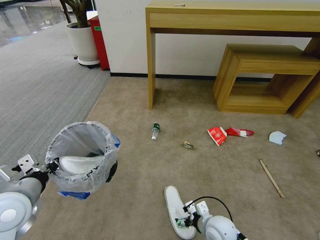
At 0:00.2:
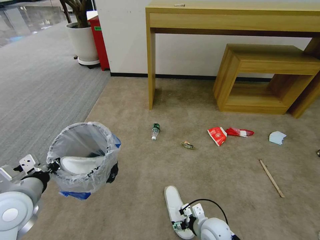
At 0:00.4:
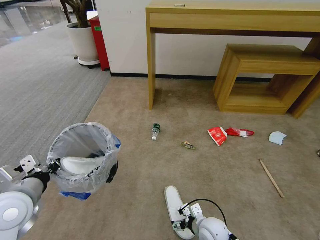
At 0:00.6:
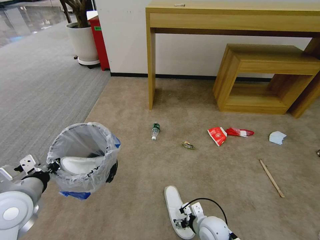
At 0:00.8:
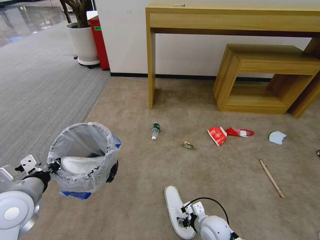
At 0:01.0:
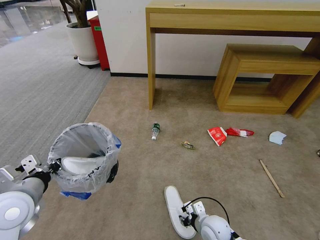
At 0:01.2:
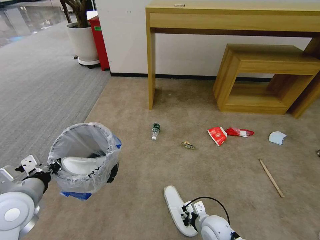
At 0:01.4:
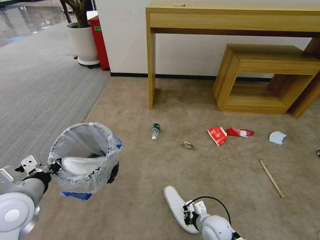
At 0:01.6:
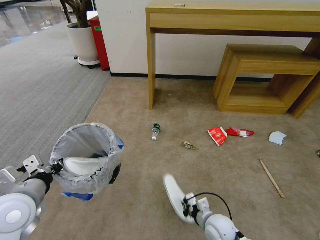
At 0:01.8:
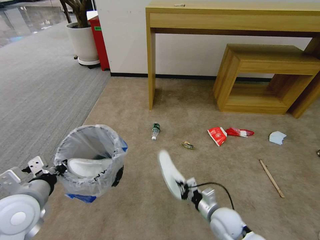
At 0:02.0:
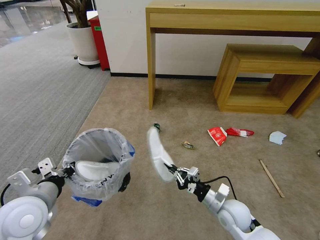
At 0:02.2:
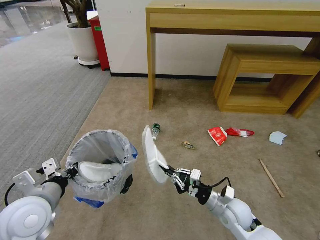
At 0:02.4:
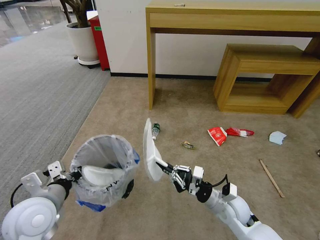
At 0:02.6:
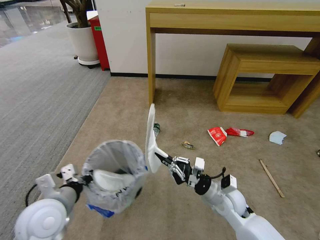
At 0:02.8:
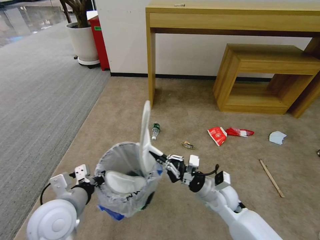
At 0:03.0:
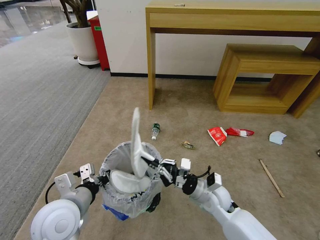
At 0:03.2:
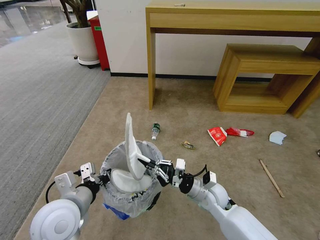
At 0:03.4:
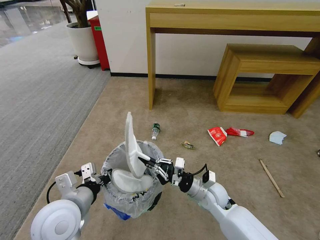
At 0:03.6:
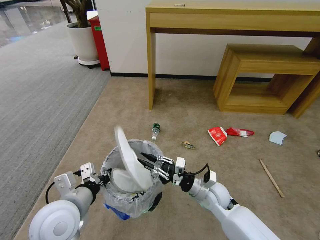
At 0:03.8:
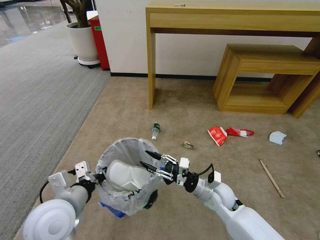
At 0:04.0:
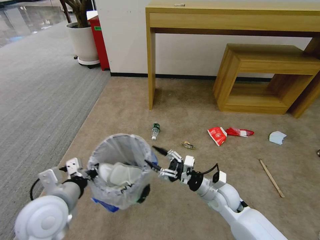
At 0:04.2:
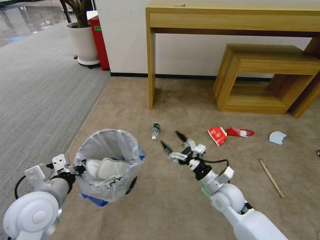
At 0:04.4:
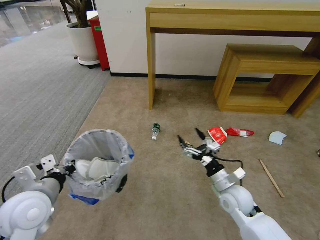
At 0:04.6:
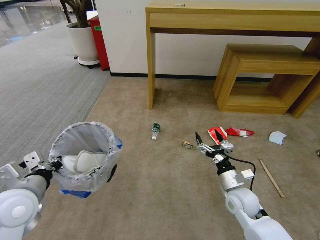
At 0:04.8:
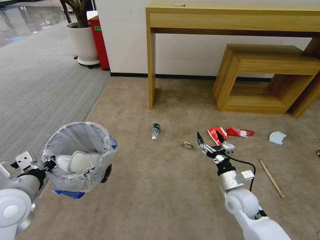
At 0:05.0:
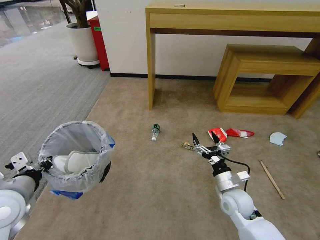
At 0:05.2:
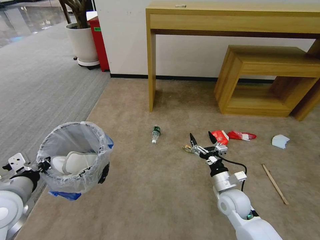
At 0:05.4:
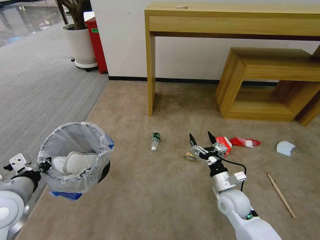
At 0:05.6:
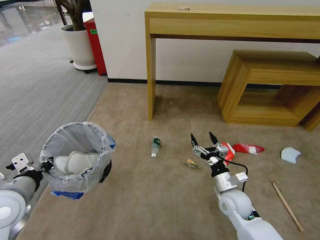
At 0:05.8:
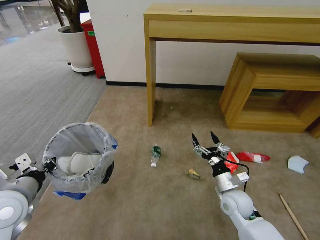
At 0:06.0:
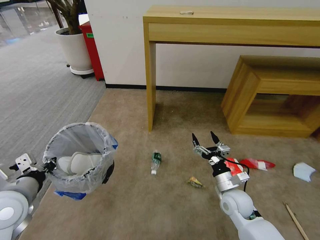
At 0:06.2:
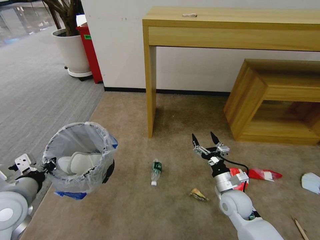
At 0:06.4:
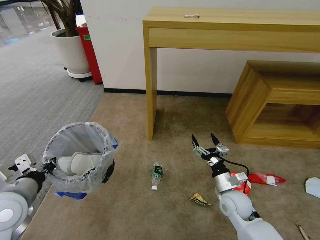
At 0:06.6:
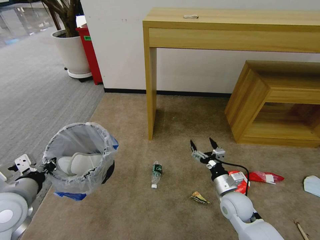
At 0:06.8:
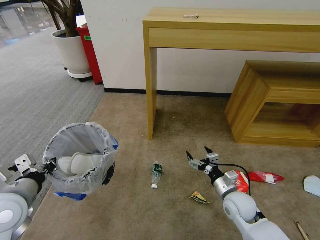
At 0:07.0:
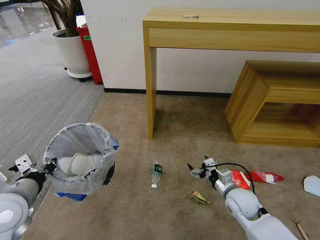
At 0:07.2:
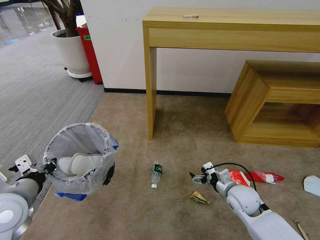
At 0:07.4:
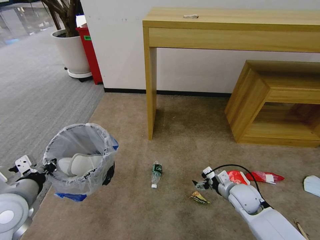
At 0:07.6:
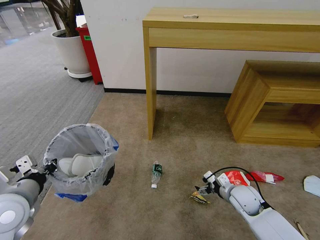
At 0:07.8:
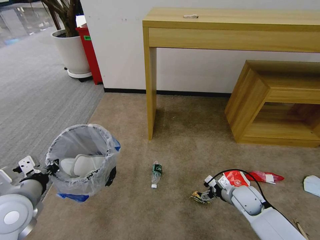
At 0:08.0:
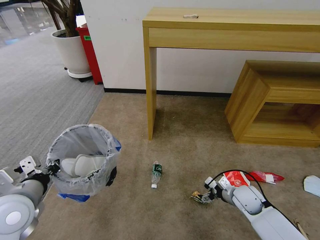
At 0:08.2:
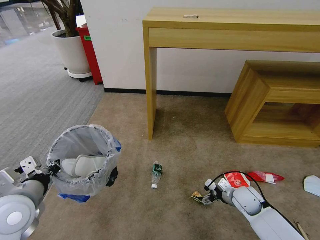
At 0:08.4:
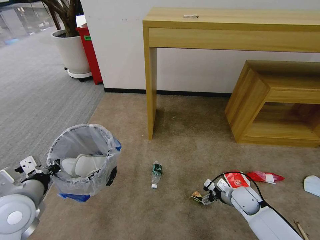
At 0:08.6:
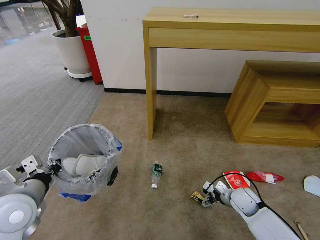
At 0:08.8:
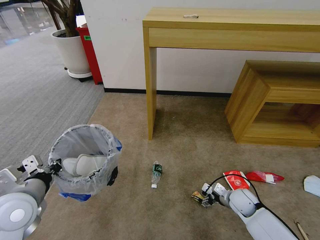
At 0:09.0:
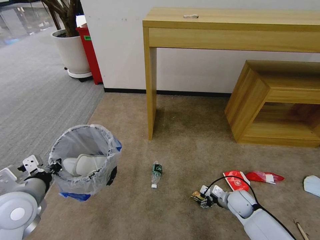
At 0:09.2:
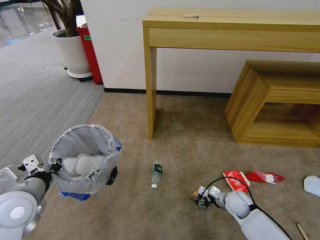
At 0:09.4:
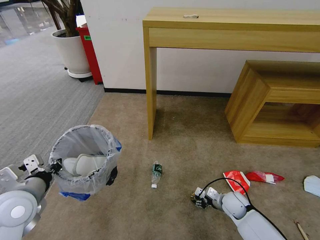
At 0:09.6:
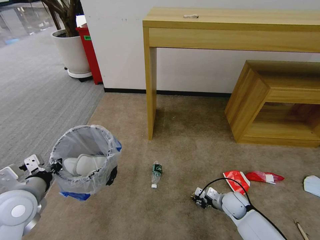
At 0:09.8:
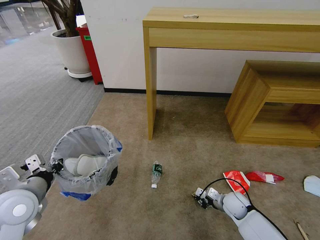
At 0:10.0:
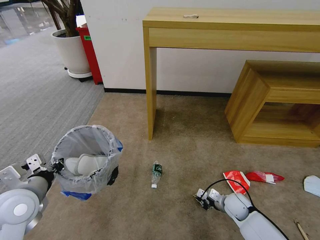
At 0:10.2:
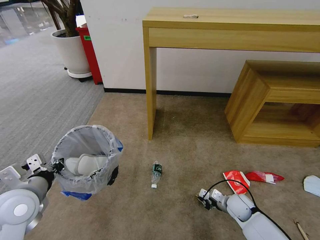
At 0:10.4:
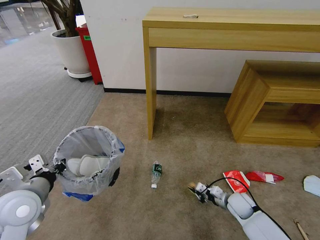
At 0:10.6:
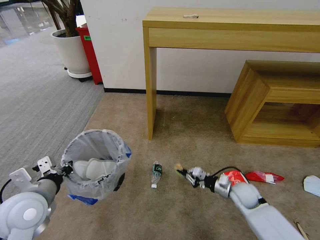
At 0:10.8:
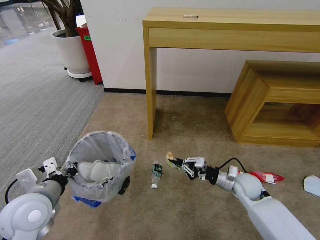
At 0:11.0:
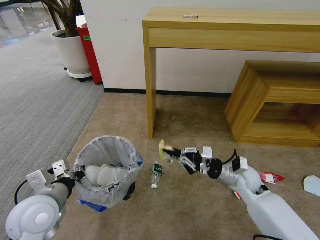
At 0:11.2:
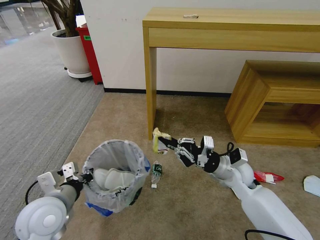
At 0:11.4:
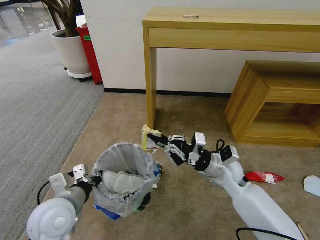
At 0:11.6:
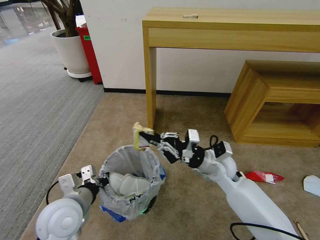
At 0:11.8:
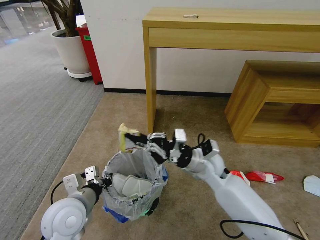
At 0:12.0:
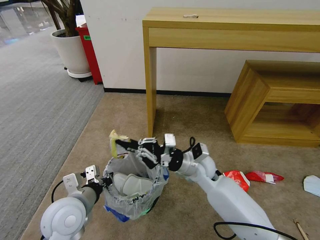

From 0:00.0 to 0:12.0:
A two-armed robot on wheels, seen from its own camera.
Task of the whole recording: Pick up the trash bin and place the garbage on the floor into it.
From 0:00.0 to 0:01.6: The right gripper closes its fingers.
From 0:01.6 to 0:03.0: The right gripper moves upward and forward, some 10 cm, while the left gripper goes about 10 cm to the right.
From 0:03.0 to 0:04.4: The left gripper goes approximately 5 cm to the left, while the right gripper moves to the right, some 5 cm, and opens.
From 0:07.6 to 0:09.0: The right gripper is displaced downward by about 5 cm.
From 0:09.0 to 0:10.4: The right gripper closes its fingers.
From 0:10.4 to 0:12.0: The right gripper heads upward and to the left, covering roughly 30 cm. The left gripper shifts about 10 cm to the right.

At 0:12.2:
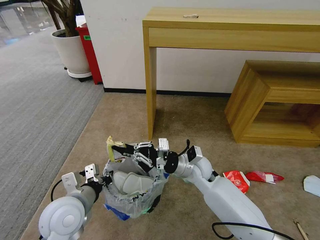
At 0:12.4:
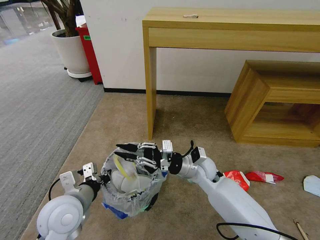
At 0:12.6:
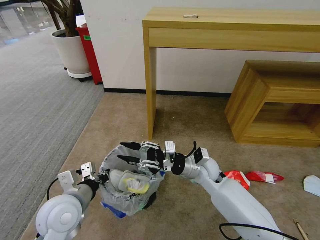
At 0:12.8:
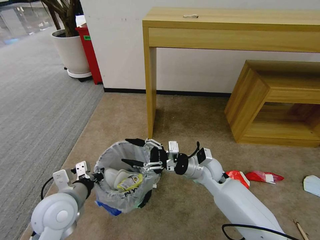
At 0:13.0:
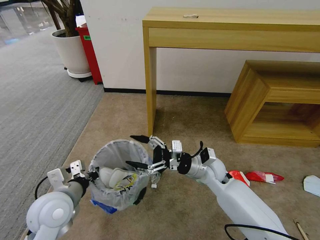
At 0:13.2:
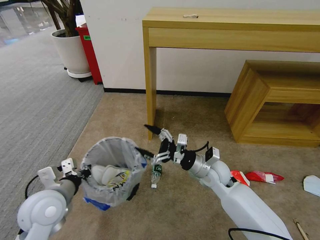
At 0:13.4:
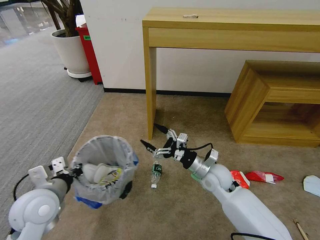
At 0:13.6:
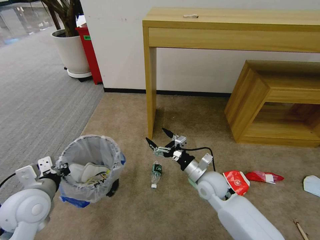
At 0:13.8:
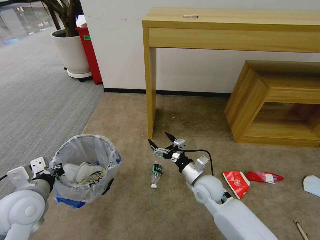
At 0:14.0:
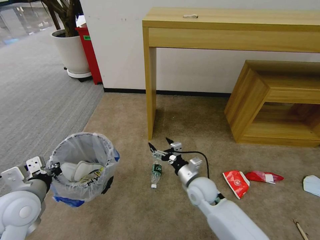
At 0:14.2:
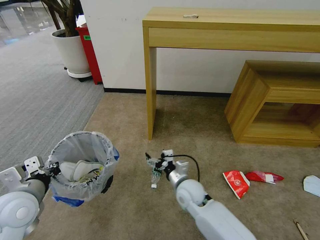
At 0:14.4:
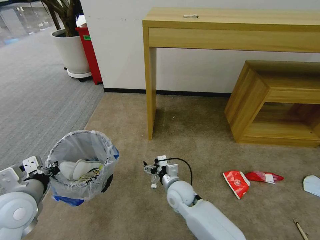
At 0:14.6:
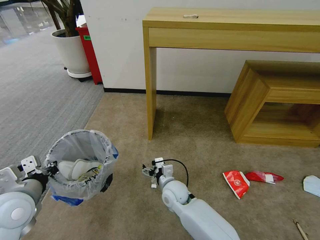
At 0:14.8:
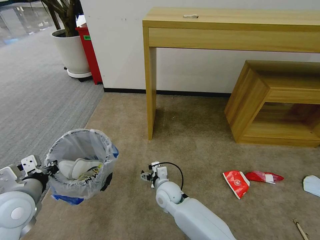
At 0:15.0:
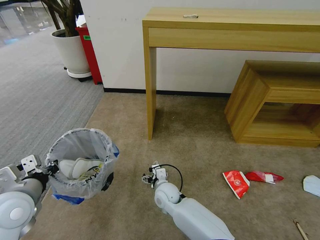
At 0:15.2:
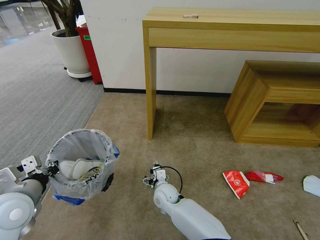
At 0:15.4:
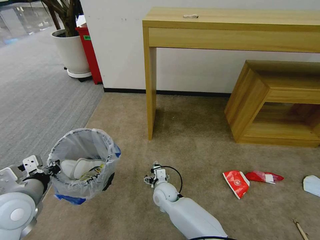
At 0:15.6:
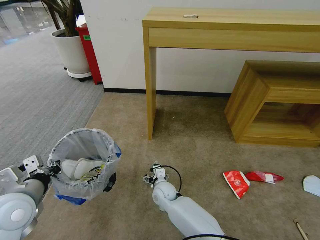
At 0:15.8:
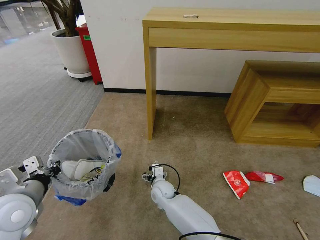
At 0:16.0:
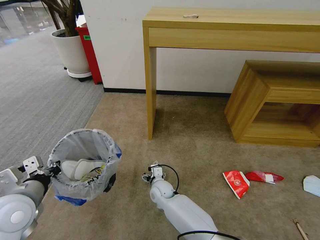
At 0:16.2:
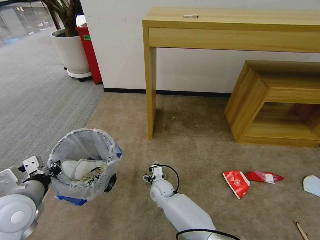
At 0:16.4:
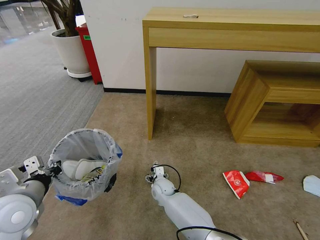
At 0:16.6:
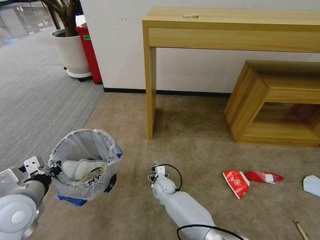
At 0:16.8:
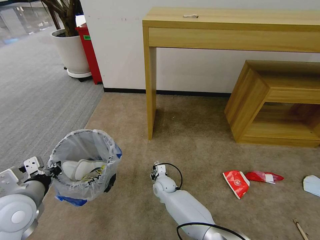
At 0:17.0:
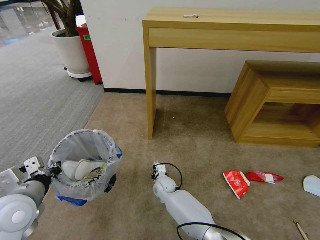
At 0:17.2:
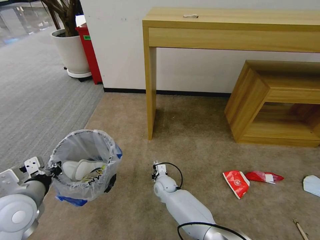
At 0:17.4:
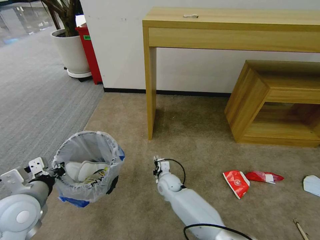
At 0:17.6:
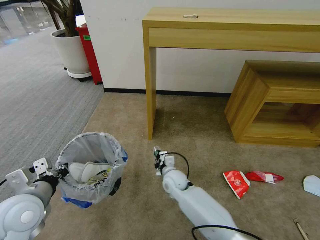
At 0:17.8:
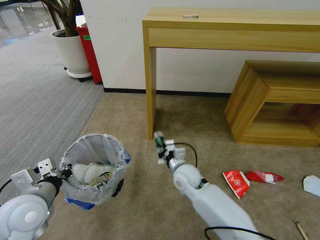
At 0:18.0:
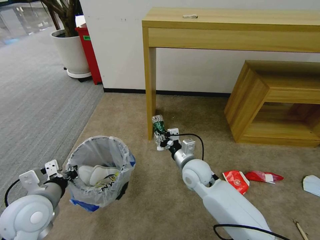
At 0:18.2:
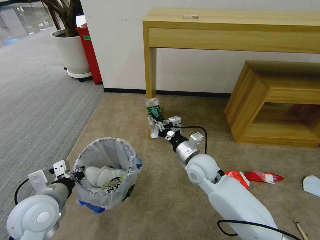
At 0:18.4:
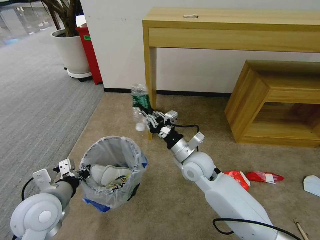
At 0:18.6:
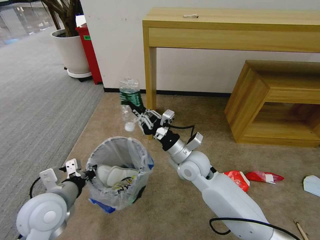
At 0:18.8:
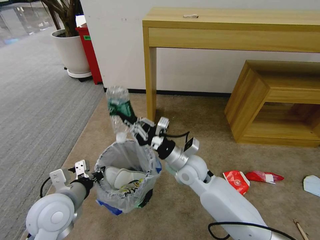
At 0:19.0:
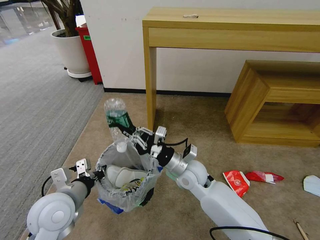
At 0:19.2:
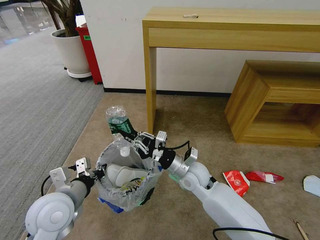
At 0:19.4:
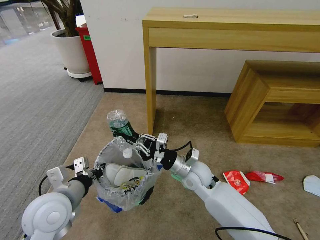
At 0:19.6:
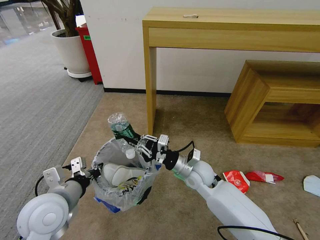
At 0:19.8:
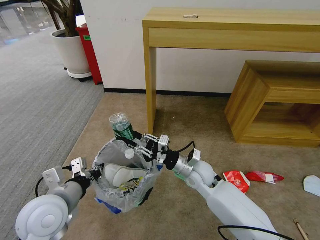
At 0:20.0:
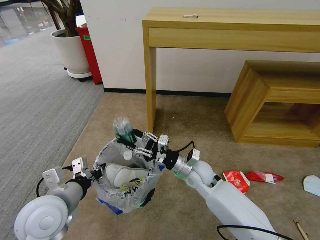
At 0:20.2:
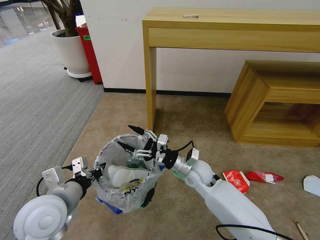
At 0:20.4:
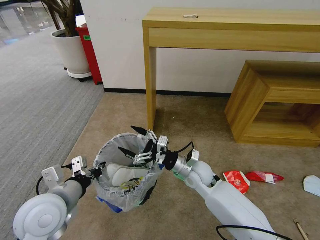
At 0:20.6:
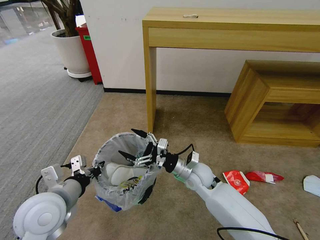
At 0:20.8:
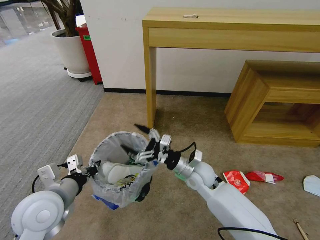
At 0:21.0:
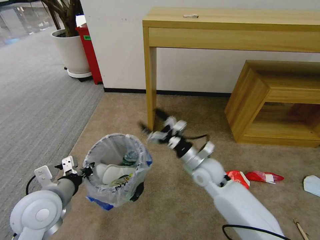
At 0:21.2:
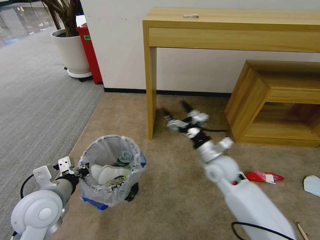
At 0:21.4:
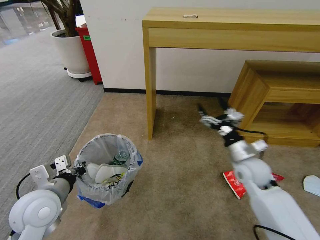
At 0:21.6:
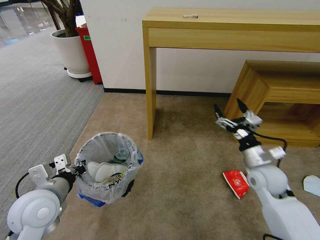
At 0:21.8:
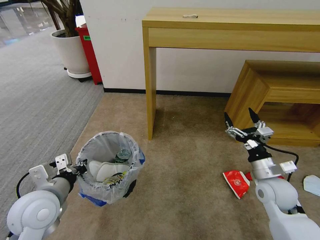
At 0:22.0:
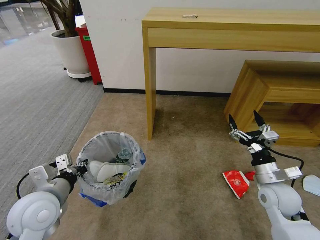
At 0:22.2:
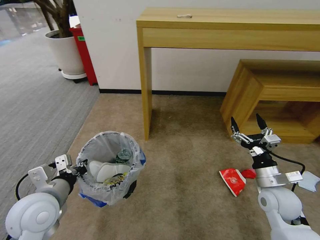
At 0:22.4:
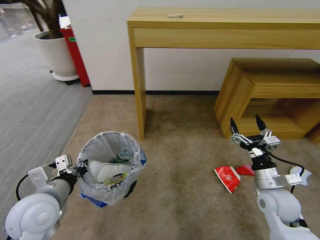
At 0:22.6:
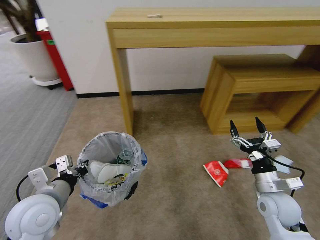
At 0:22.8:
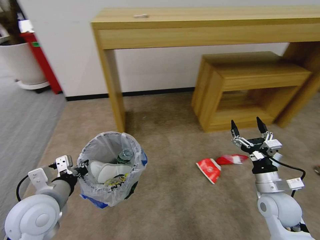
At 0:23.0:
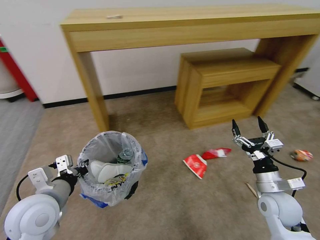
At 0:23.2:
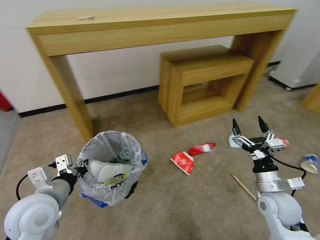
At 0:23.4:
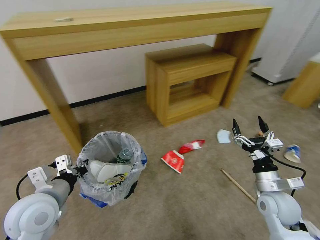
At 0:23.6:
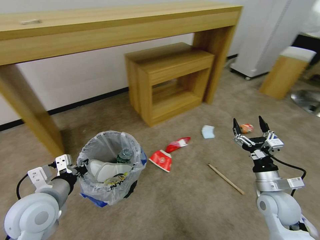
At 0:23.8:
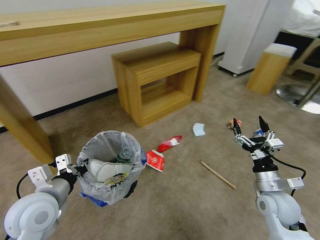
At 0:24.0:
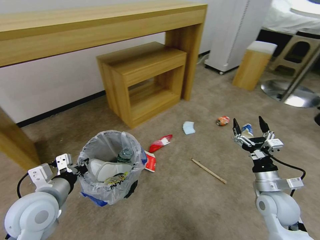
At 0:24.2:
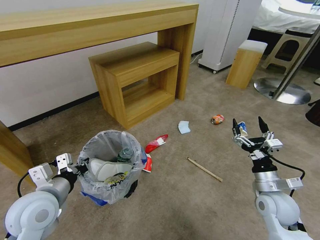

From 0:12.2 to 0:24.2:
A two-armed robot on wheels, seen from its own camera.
Task of the whole recording: Pick up the trash bin and place the garbage on the floor into it.
From 0:12.2 to 0:13.8: The left gripper shifts about 10 cm to the left, while the right gripper heads downward, covering about 5 cm, and opens its fingers.
From 0:13.8 to 0:15.2: The right gripper moves to the left and downward, about 20 cm.
From 0:15.2 to 0:16.6: The right gripper changes place by about 5 cm.
From 0:16.6 to 0:18.2: The right gripper goes roughly 25 cm upward and to the right, and closes up.
From 0:19.8 to 0:21.2: The right gripper moves to the right, about 5 cm, and opens.
From 0:21.2 to 0:22.6: The right gripper is displaced to the right and backward by some 20 cm.
